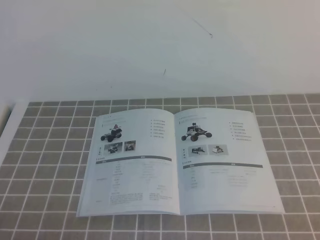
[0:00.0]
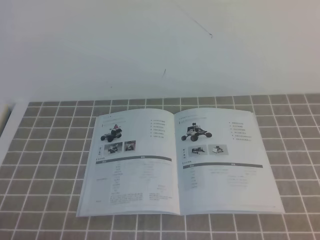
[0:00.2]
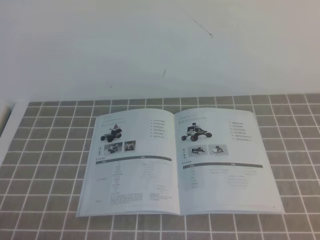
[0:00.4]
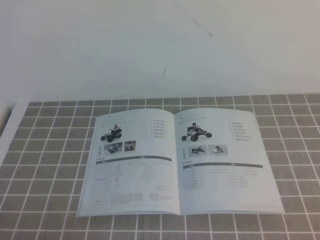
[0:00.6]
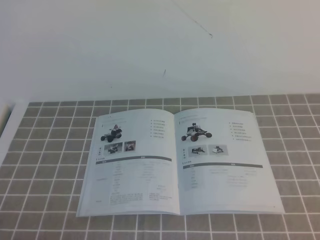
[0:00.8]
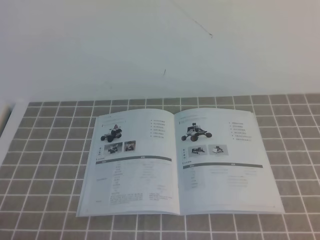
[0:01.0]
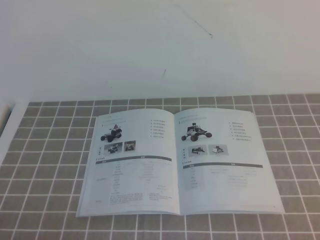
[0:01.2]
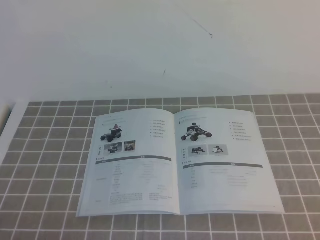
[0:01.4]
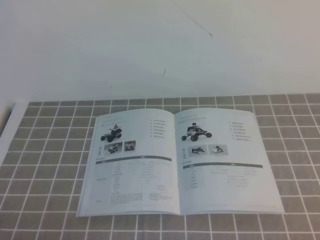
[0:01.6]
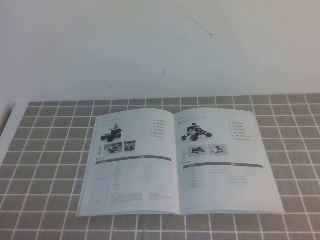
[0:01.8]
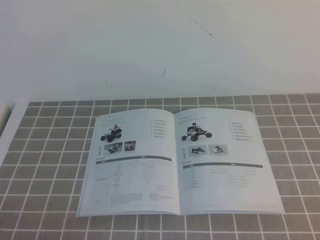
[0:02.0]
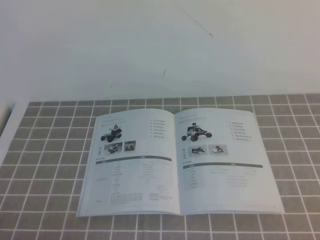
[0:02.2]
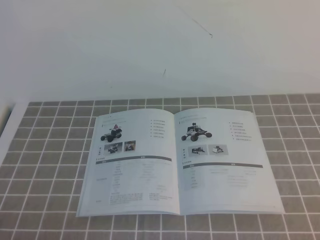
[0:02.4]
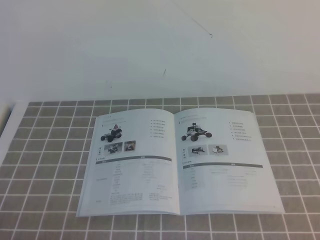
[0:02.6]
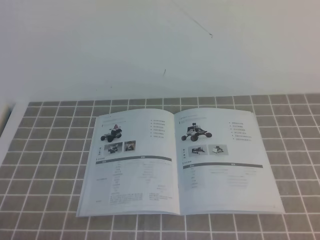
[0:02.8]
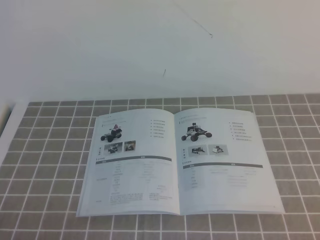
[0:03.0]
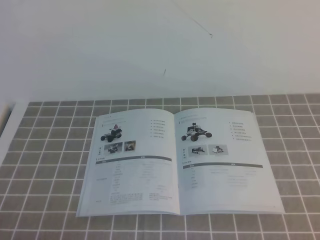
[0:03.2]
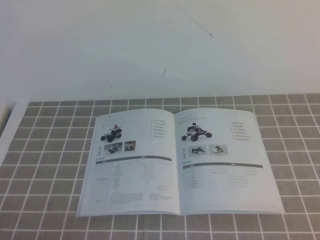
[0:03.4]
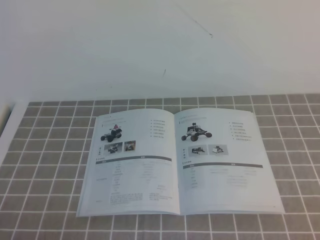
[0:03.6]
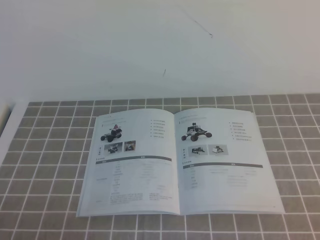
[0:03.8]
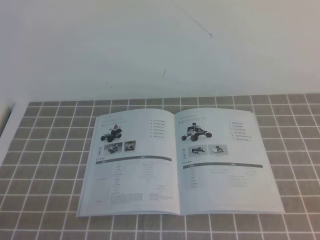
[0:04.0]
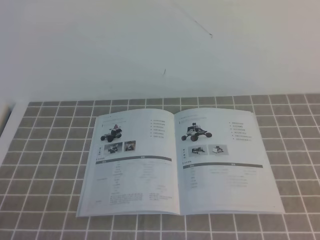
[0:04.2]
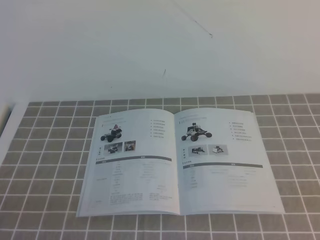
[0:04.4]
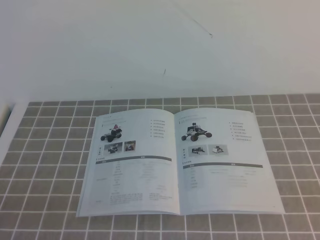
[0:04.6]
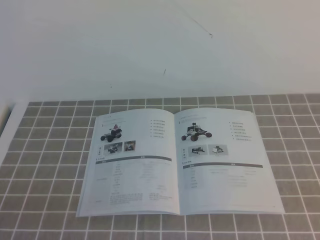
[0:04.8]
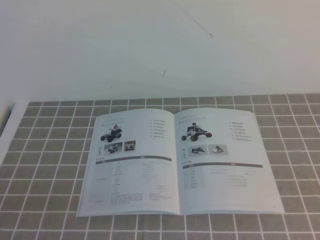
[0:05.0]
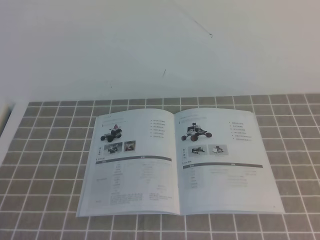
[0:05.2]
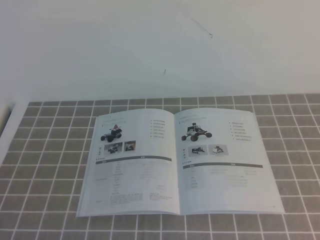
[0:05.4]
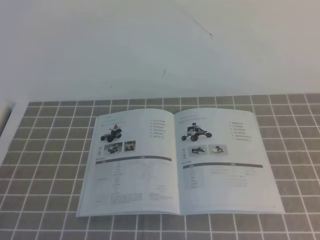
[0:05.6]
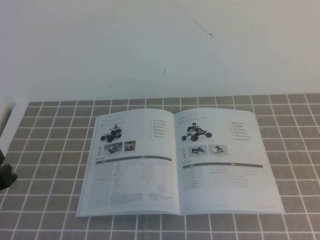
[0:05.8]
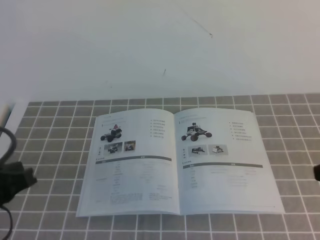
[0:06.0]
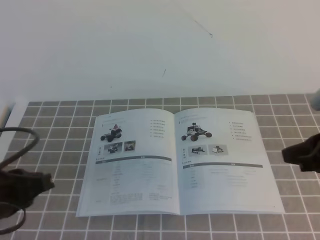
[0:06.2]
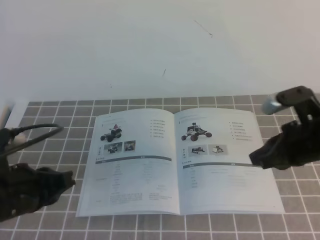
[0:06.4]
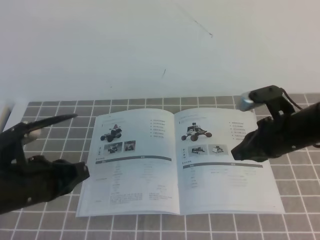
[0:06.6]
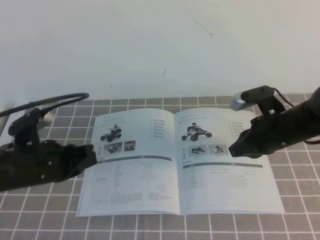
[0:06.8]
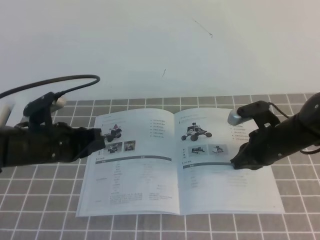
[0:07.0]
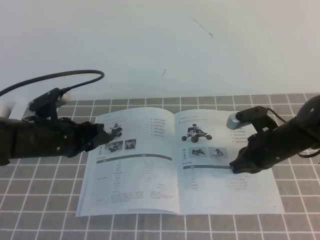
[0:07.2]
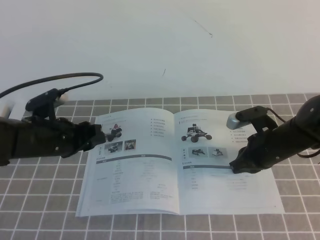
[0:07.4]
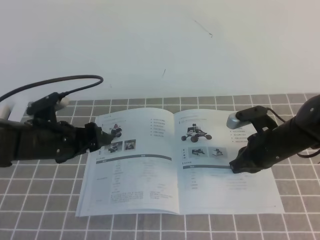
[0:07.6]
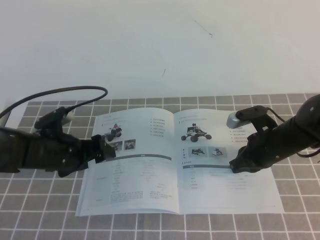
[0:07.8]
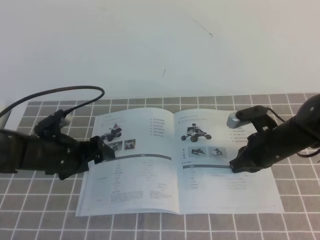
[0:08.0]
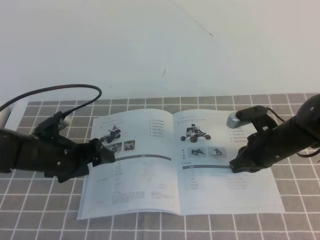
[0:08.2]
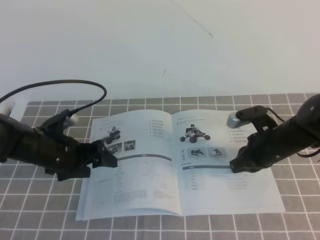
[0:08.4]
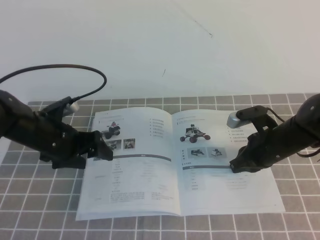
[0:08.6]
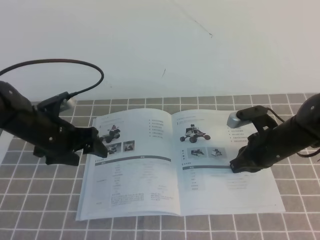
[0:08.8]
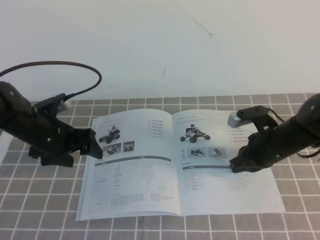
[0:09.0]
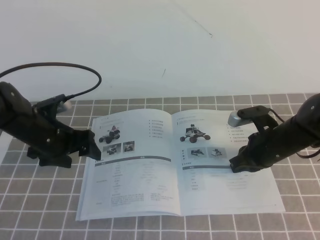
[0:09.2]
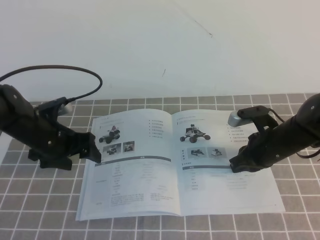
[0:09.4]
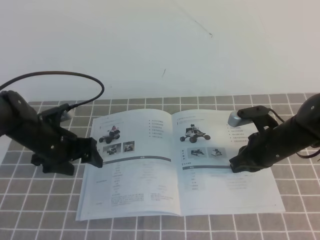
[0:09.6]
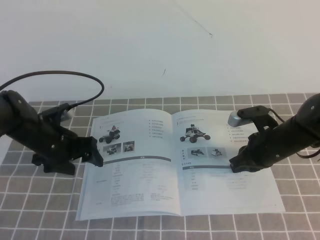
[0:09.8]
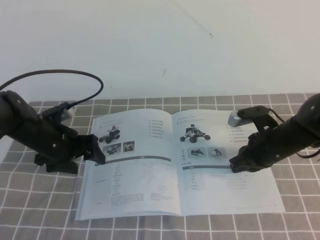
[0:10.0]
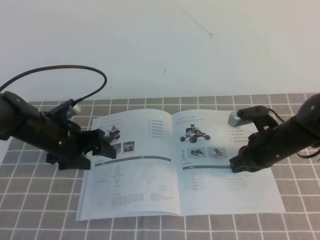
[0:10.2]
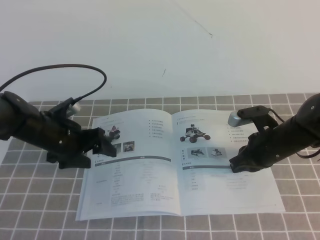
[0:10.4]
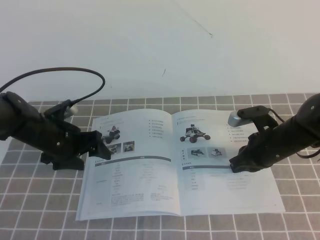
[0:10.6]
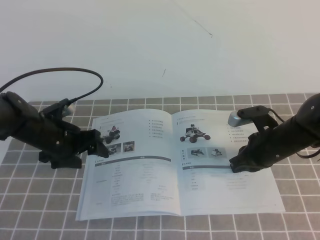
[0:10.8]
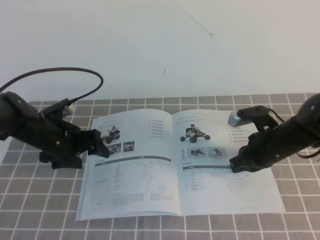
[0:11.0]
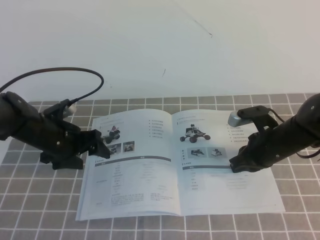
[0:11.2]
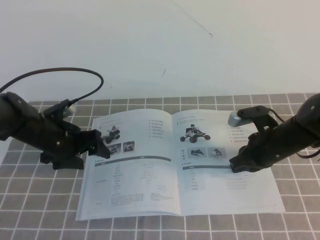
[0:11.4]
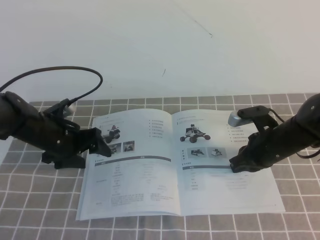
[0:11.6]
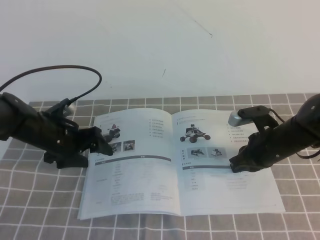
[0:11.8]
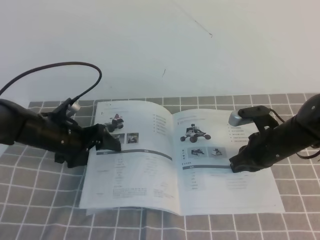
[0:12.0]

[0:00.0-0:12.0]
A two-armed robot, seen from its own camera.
Task of the whole recording: on the grey tablecloth, hold the book with one hand and close it with the other.
0:01.6 to 0:03.0: Both grippers stay put.
0:04.4 to 0:06.0: The left gripper travels forward by some 10 cm.
0:06.0 to 0:07.6: The right gripper moves forward, downward and to the left, roughly 25 cm; the left gripper is displaced forward and downward by about 20 cm, and opens its fingers.
0:09.0 to 0:12.0: The grippers stay close to where they were, moving slightly.

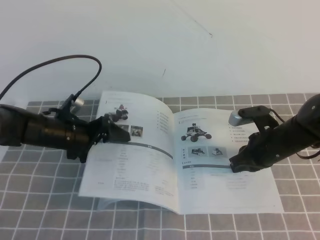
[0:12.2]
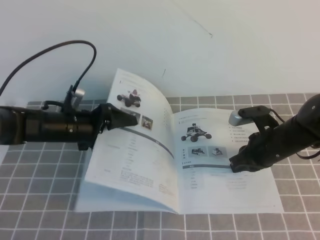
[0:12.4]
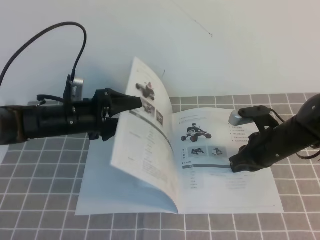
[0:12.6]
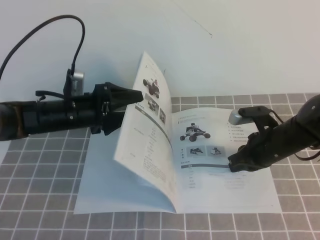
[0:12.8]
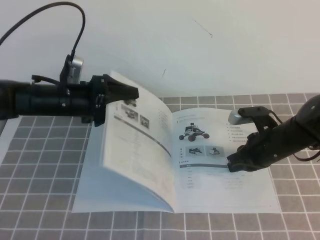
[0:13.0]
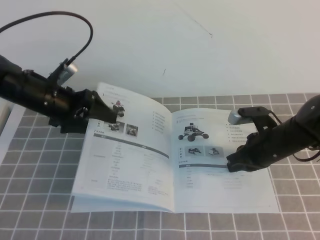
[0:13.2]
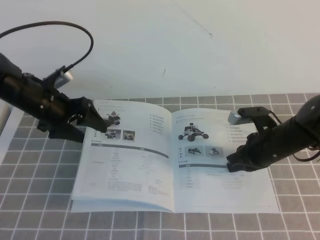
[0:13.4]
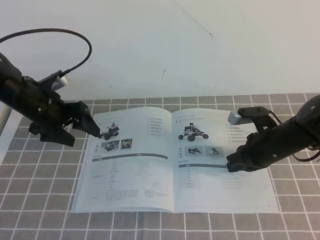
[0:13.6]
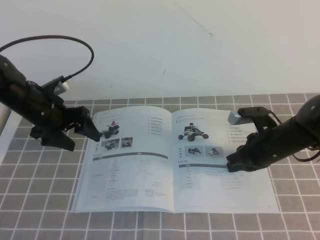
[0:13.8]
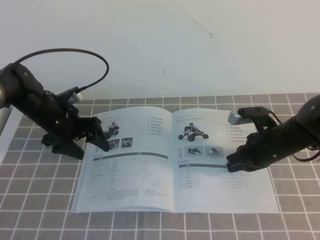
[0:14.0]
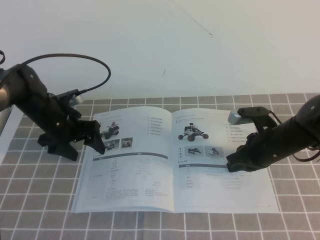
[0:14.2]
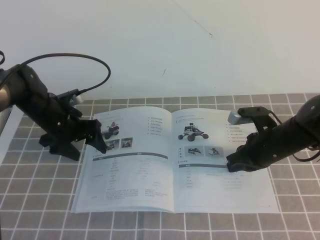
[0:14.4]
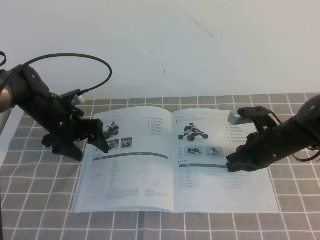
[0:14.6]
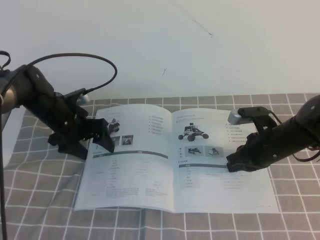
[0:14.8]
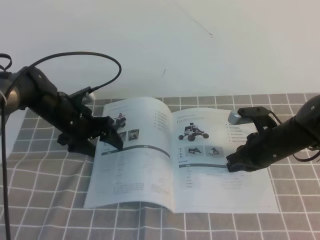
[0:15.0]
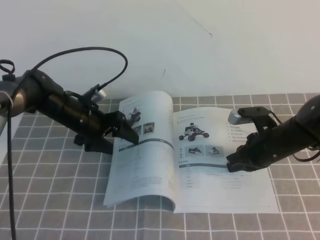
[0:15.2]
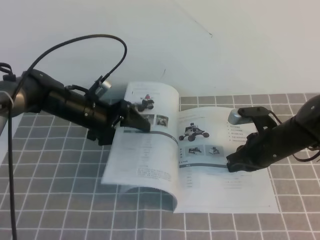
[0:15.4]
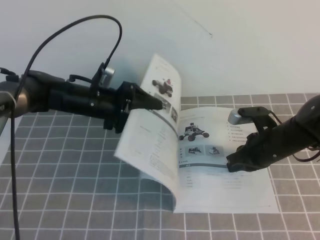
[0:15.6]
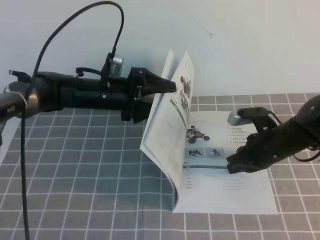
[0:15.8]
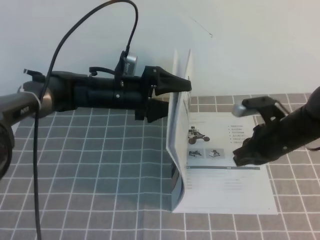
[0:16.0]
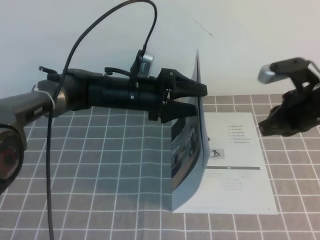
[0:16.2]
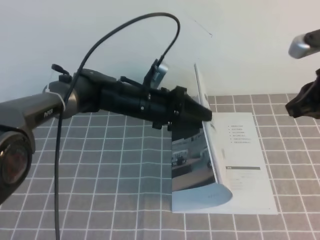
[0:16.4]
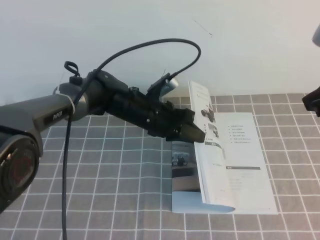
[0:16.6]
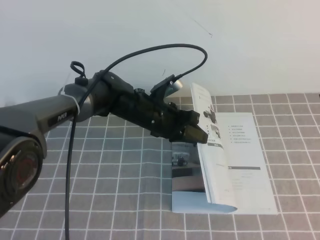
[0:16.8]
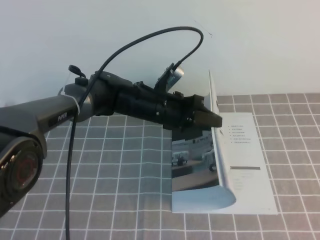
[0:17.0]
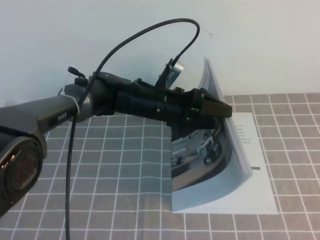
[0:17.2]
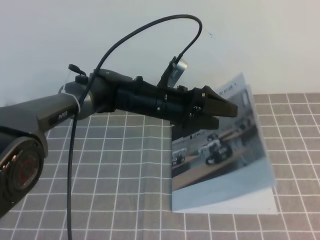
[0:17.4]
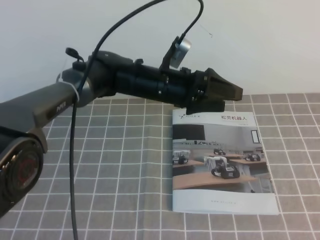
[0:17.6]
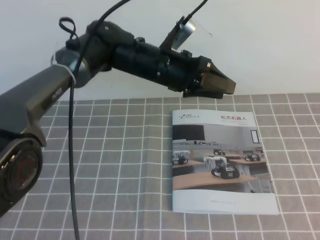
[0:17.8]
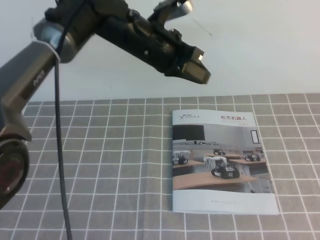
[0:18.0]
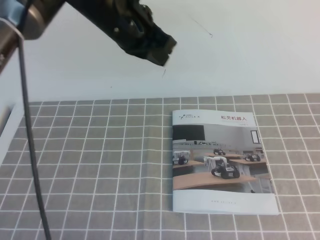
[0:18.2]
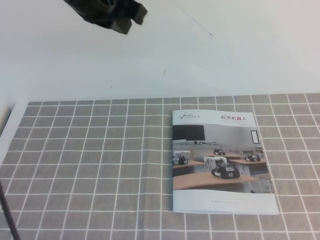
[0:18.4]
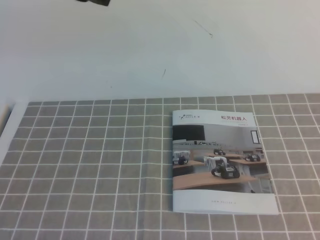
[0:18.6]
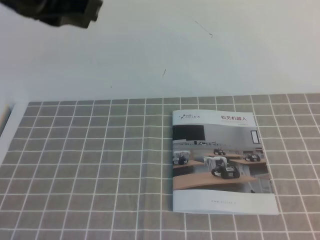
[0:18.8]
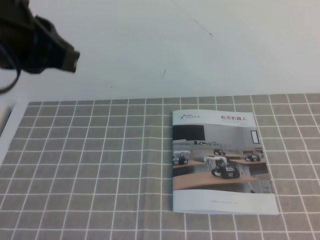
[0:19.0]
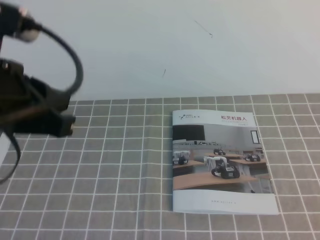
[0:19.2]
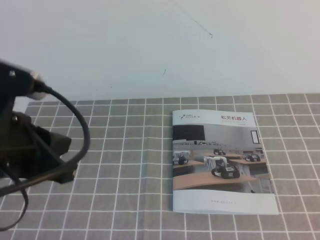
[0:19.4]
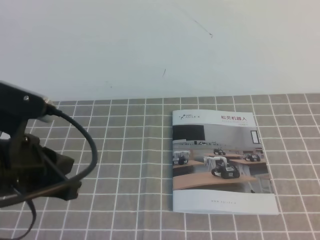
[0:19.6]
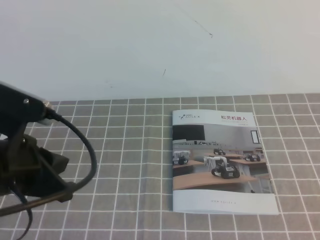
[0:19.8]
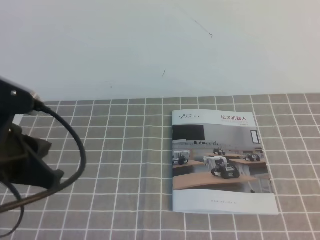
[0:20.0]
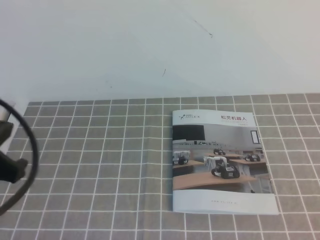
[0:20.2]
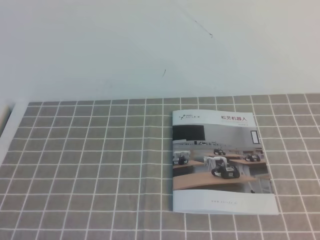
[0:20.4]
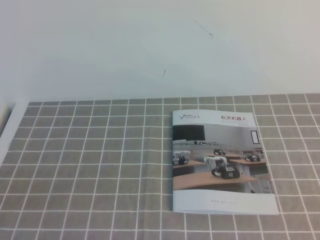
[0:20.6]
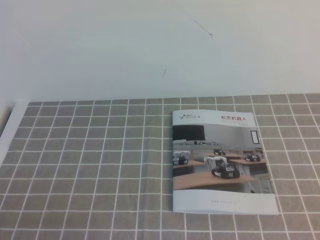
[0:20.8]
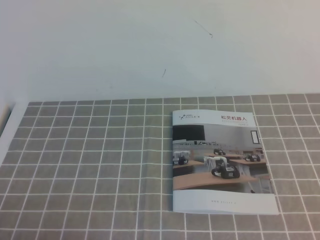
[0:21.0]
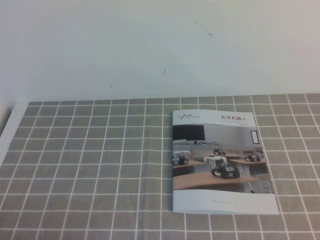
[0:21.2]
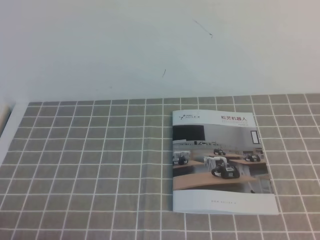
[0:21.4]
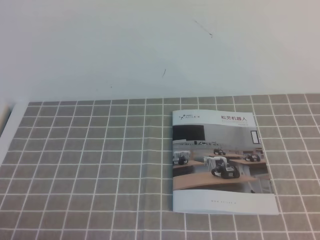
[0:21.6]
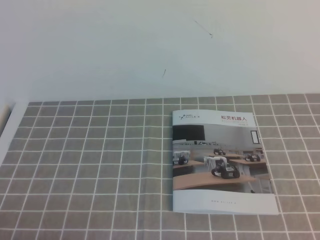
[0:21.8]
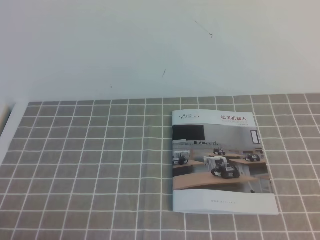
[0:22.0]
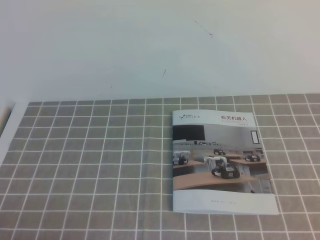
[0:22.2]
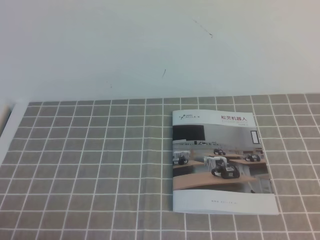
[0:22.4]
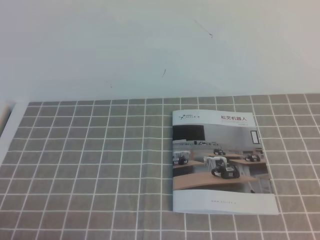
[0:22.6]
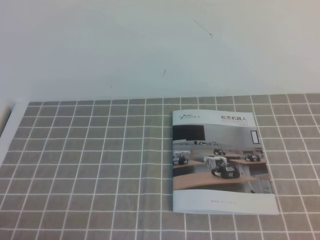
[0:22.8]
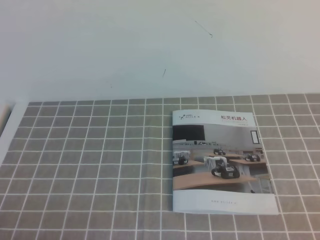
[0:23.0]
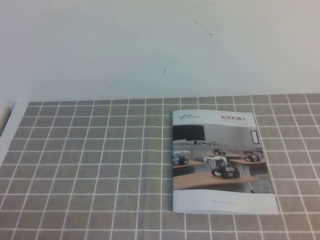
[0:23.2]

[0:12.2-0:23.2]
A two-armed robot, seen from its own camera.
Task of the whole recording: on the grey tablecloth, hold the book with one hand and close it with the other.
Step, 0:12.2 to 0:23.2: Close the open book.
0:12.2 to 0:13.8: The left gripper shifts by roughly 5 cm.
0:13.8 to 0:15.4: The left gripper moves to the right, some 10 cm.
0:15.4 to 0:17.0: The left gripper goes roughly 15 cm to the right, and closes its fingers. The right gripper shifts some 30 cm upward and backward.
0:17.0 to 0:18.4: The left gripper heads upward, covering some 25 cm, and opens and closes again. The right gripper is displaced backward by roughly 15 cm.
0:18.4 to 0:20.0: The left gripper travels backward, downward and to the left by approximately 25 cm. Meanwhile the right gripper heads downward, covering some 5 cm.
0:20.0 to 0:21.6: The left gripper moves downward and backward, approximately 20 cm.
